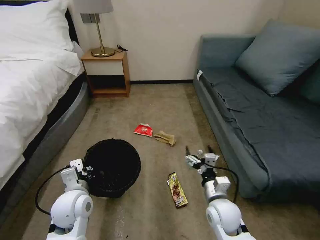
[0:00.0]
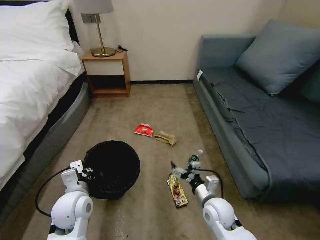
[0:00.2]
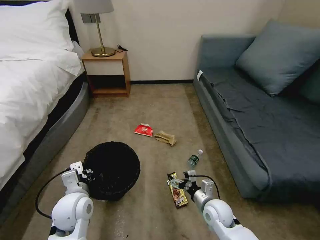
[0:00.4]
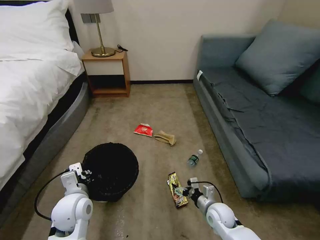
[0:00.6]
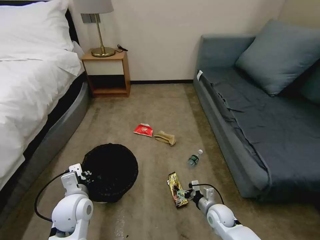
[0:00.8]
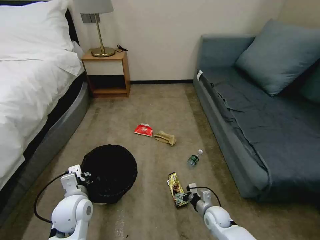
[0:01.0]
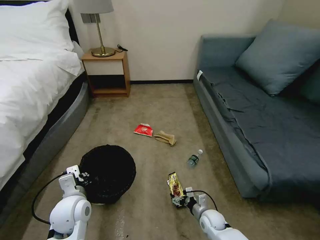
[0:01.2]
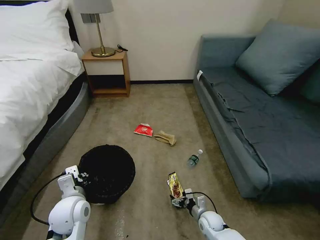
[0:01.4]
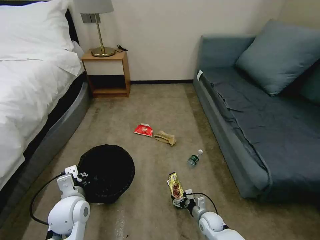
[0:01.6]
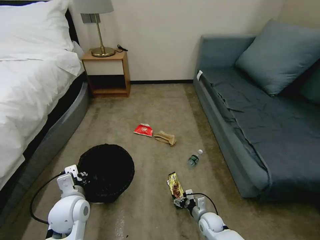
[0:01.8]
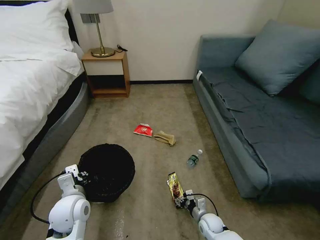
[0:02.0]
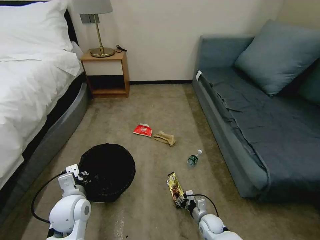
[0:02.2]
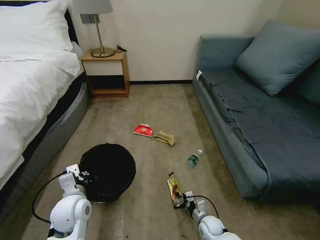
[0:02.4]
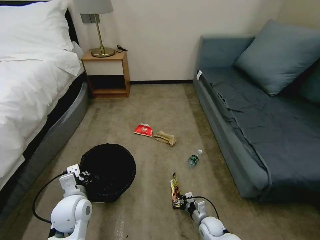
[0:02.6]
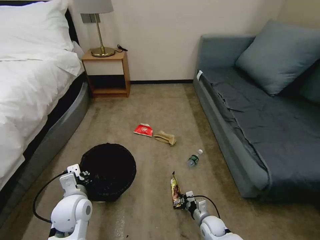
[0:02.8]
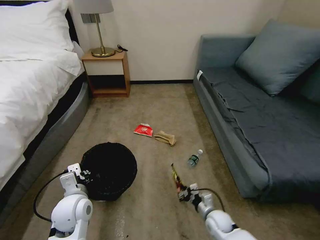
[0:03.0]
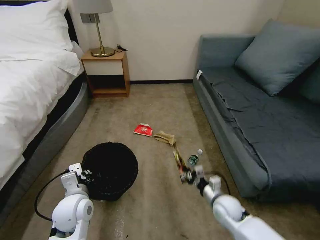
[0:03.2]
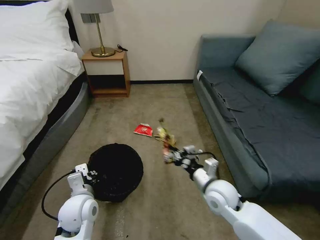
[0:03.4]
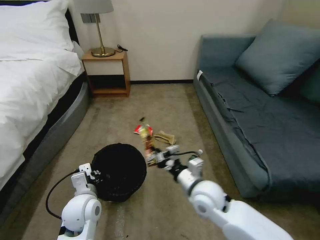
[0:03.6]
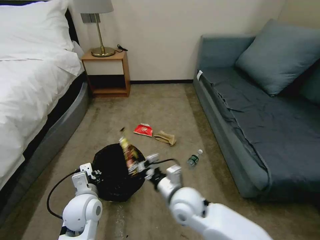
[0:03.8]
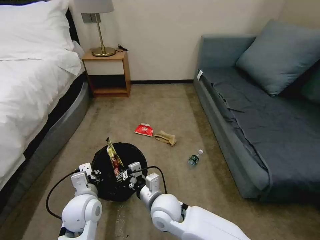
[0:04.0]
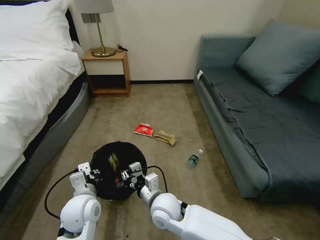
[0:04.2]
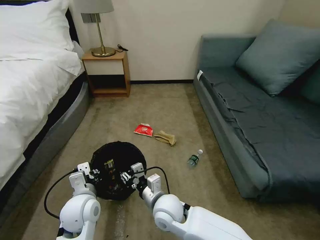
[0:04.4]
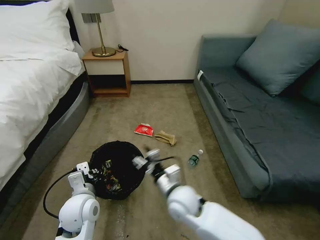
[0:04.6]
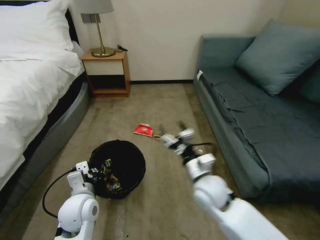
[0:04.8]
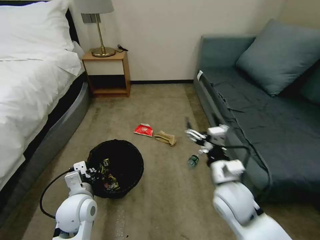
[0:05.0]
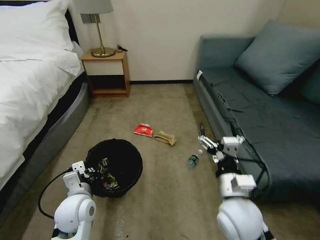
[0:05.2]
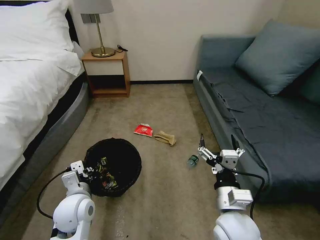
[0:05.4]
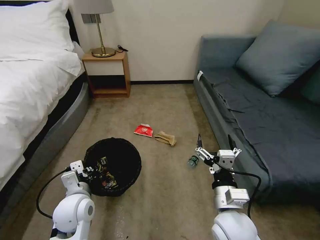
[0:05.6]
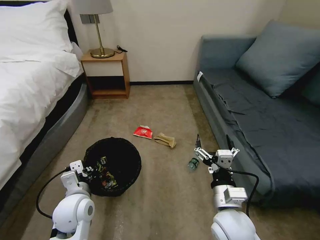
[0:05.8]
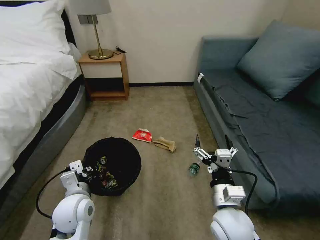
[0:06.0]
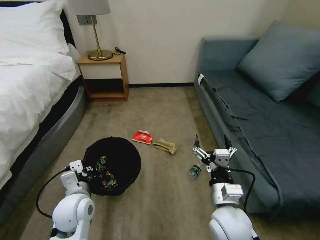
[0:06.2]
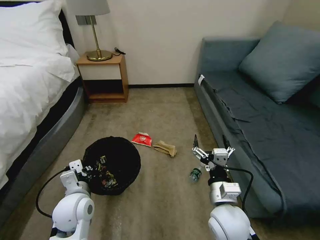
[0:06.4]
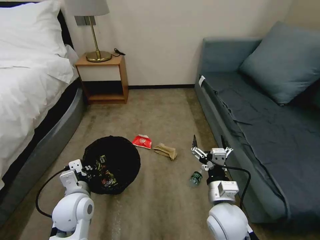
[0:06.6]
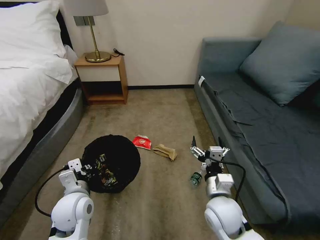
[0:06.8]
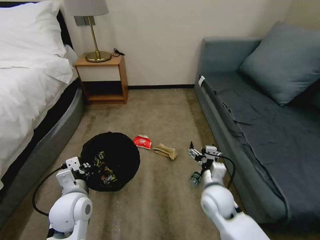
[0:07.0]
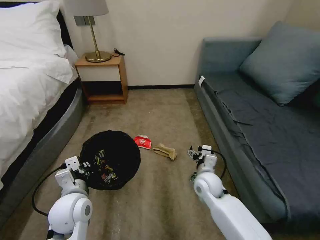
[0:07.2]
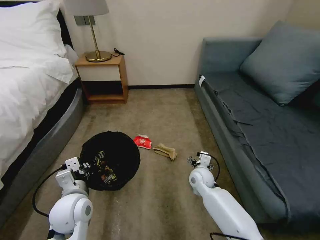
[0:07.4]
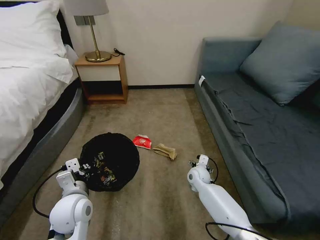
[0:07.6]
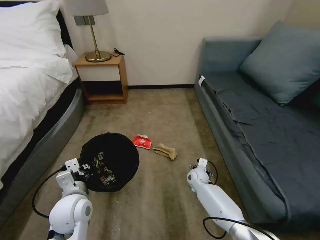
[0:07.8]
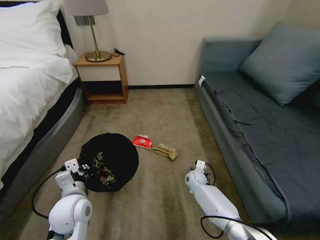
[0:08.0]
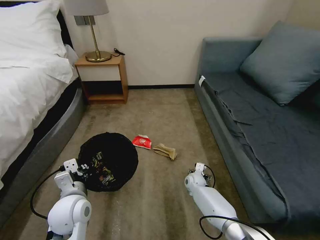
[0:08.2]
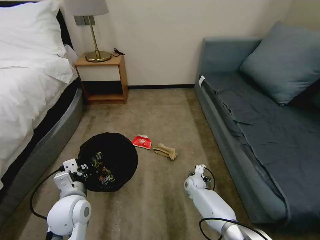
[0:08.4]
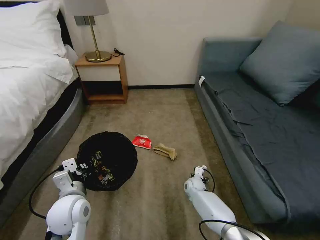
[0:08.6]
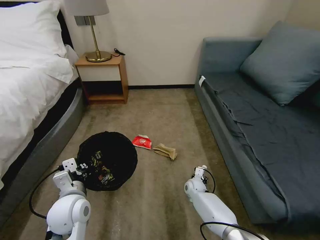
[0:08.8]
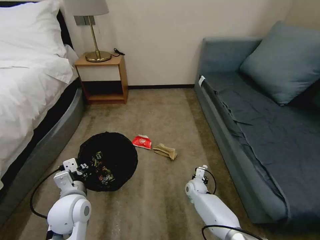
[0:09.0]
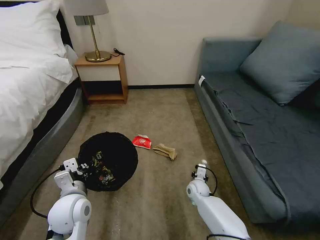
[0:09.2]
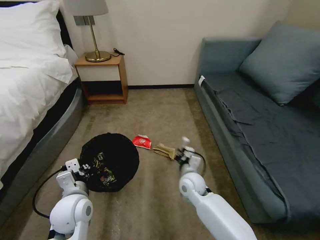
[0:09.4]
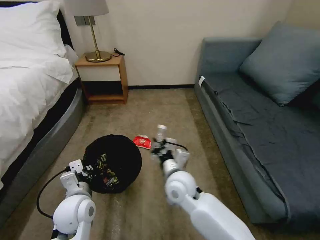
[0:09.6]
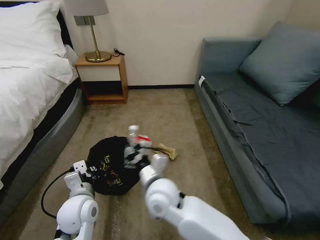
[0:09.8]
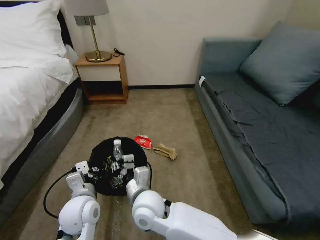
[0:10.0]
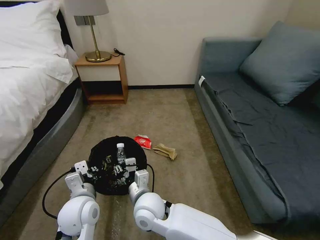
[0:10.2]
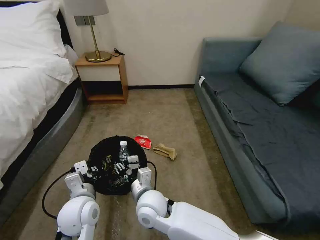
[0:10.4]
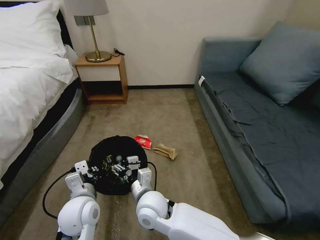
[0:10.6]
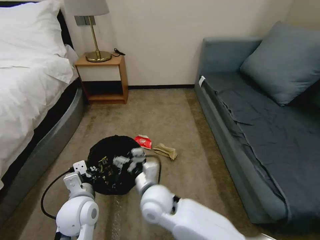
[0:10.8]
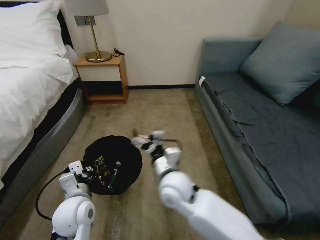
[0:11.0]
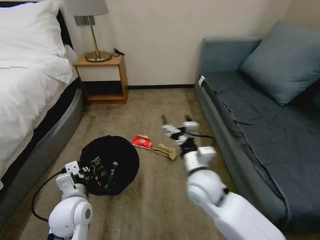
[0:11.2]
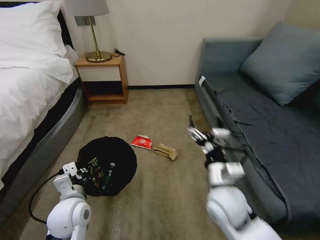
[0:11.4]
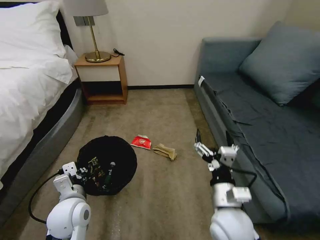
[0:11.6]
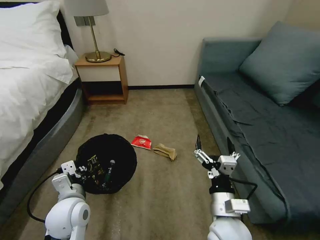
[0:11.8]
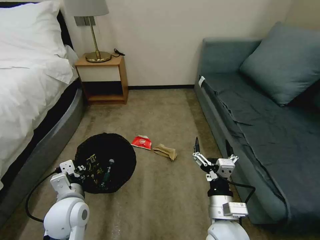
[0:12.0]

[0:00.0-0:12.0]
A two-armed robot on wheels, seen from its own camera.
Task of the whole recording: Pick up the trash bin, then pick up the garbage on the floor and place it into the trash bin.
0:00.0 to 0:01.6: The right gripper is displaced downward by roughly 20 cm.
0:01.6 to 0:03.0: The right gripper closes its fingers.
0:03.0 to 0:04.4: The right gripper is displaced to the left and upward by roughly 30 cm, and opens.
0:04.4 to 0:06.0: The right gripper heads to the right and upward, covering some 15 cm, and opens up.
0:06.0 to 0:07.6: The right gripper moves forward and downward, about 30 cm.
0:07.6 to 0:09.0: The right gripper is displaced downward by approximately 10 cm, and closes.
0:09.0 to 0:10.4: The right gripper travels upward, to the left and backward by roughly 35 cm.
0:10.4 to 0:12.0: The right gripper moves to the right and backward, some 20 cm, and opens up.

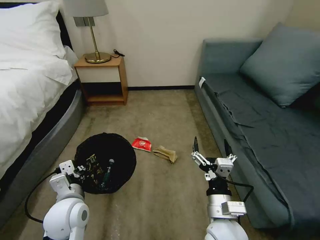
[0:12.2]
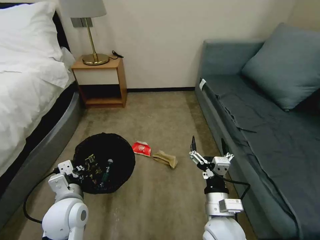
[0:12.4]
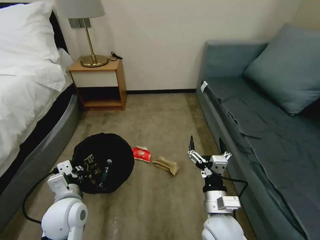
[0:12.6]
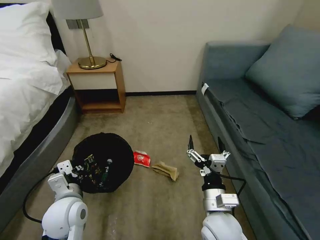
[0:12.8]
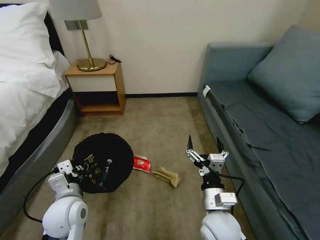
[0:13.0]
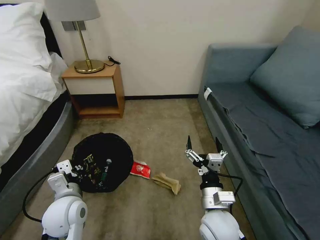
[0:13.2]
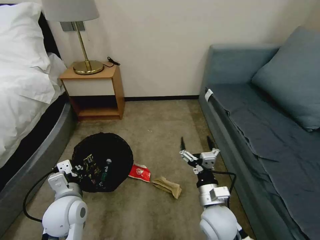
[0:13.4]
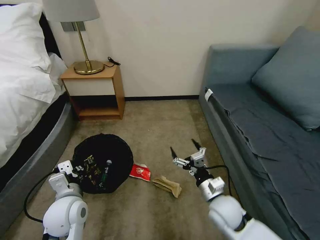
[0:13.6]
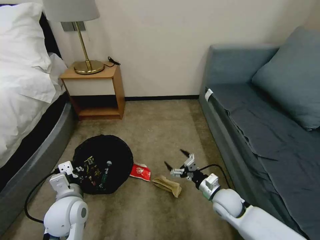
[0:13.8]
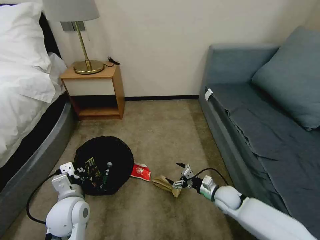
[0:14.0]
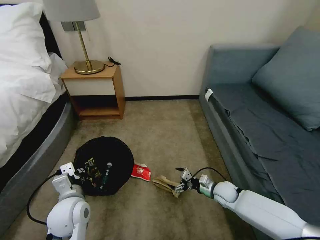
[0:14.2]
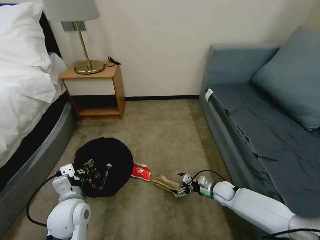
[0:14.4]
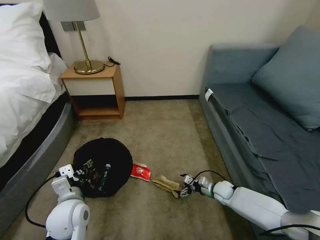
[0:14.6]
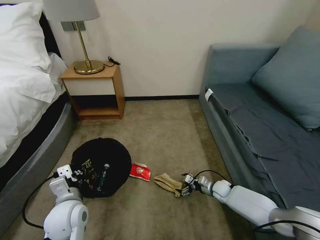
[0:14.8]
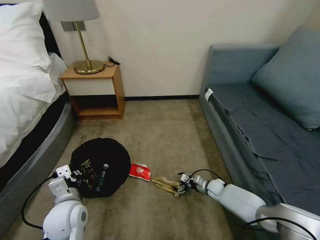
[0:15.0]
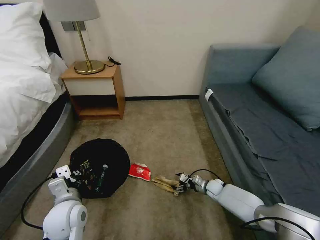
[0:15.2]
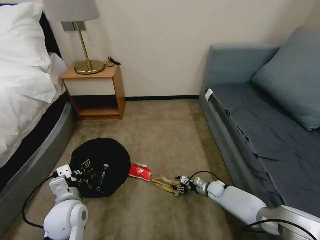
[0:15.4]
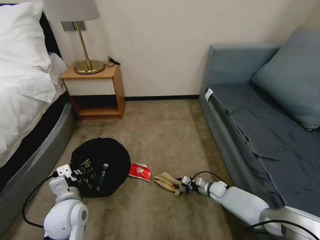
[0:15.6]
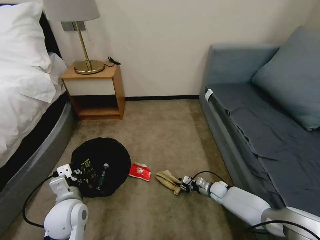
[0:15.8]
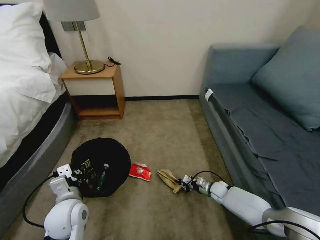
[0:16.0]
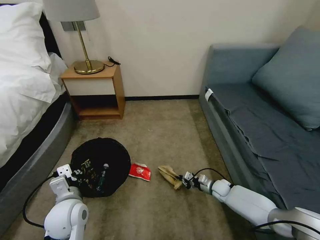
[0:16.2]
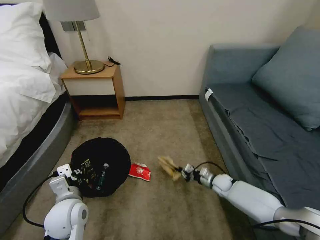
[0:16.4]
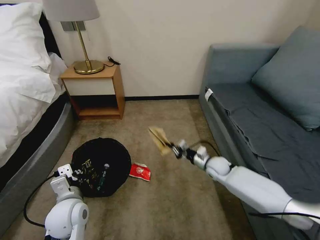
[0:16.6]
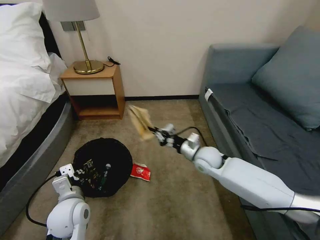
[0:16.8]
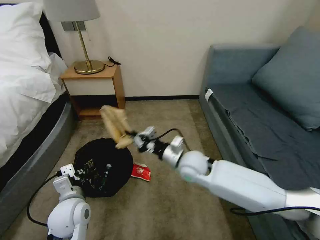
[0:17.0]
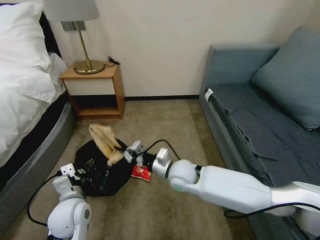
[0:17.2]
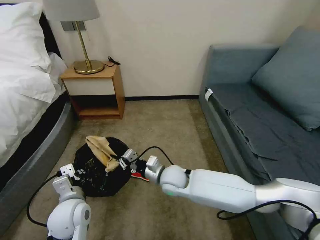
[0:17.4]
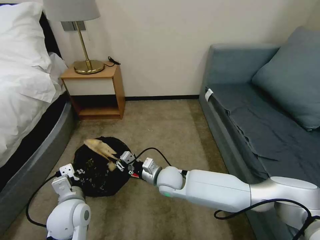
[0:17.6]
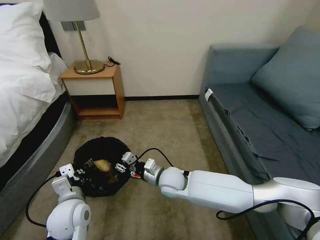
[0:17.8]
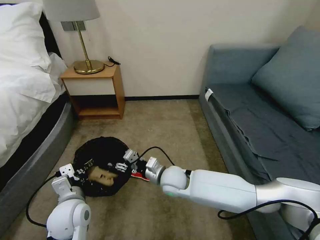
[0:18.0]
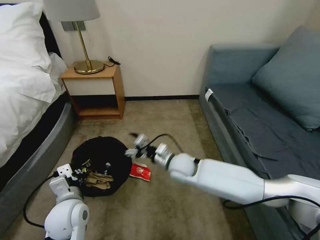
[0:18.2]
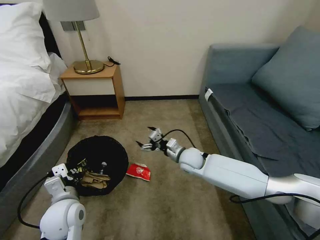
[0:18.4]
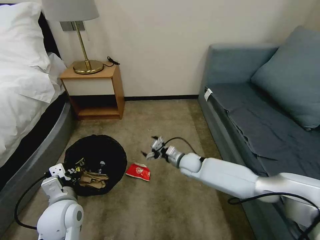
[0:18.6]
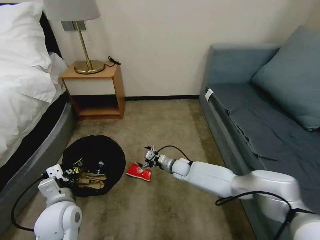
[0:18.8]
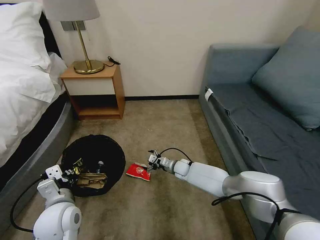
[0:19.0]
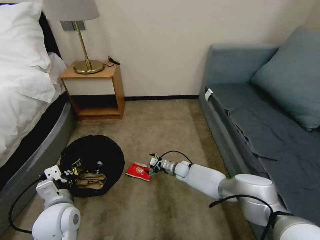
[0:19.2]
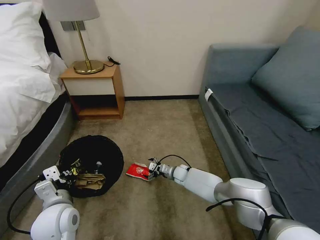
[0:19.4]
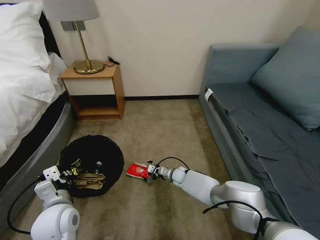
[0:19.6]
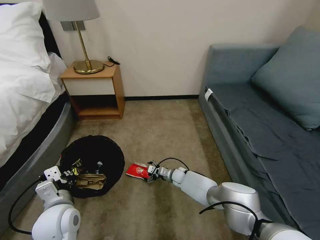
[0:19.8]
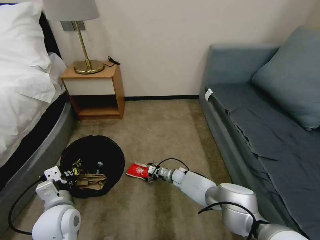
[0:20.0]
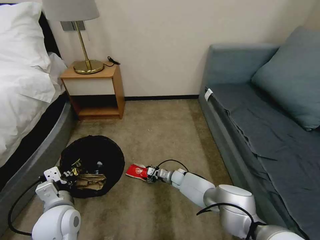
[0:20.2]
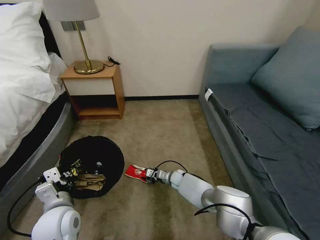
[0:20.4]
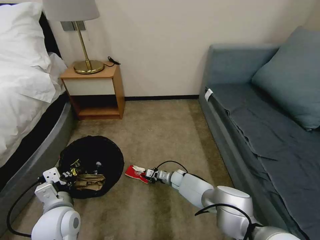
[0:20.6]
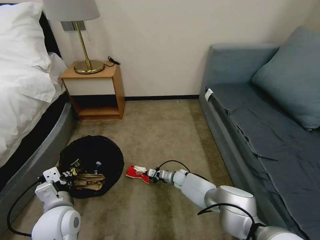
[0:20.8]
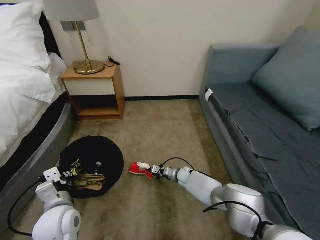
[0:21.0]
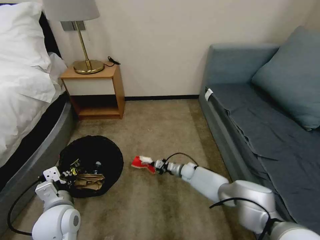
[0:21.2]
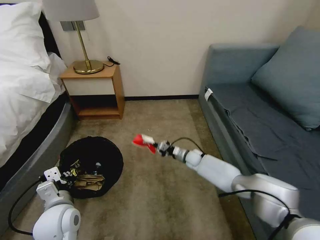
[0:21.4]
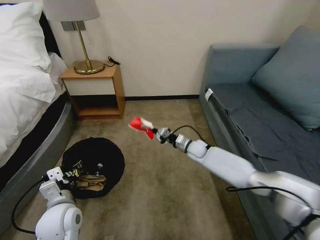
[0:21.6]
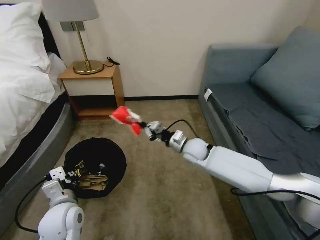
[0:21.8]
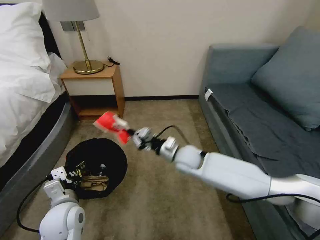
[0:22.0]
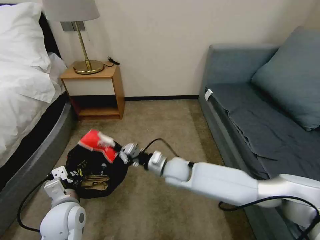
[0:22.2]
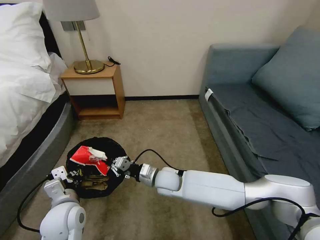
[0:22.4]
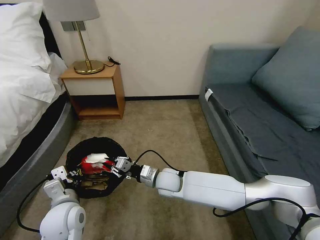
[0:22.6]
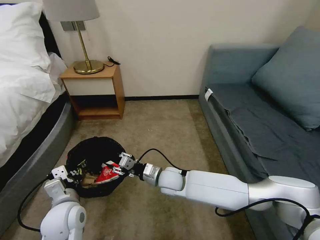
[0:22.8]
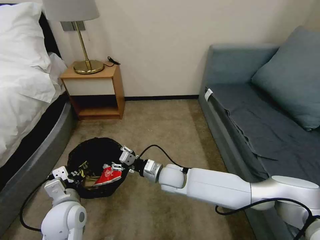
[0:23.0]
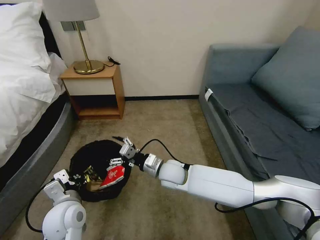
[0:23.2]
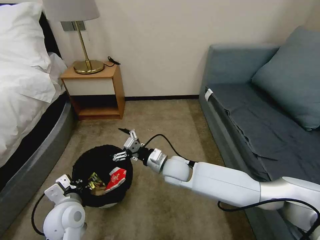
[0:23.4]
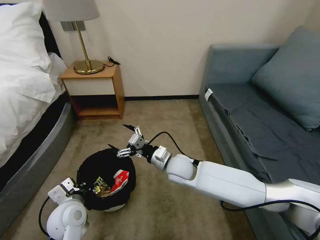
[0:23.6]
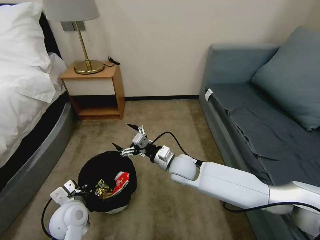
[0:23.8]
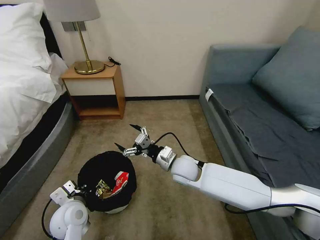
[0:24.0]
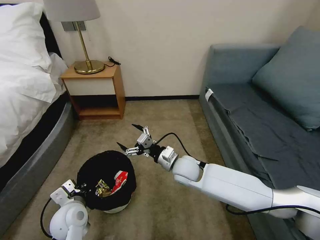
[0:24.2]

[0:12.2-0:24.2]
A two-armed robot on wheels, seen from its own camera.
Task of the whole recording: Pick up the trash bin, then pick up the garbage on the floor and place it into the trash bin.
0:12.2 to 0:13.8: The right gripper heads forward, downward and to the right, covering some 15 cm.
0:13.8 to 0:15.2: The right gripper heads downward and forward, covering approximately 20 cm.
0:15.2 to 0:16.6: The right gripper heads upward, covering about 15 cm, and closes up.
0:16.6 to 0:18.2: The right gripper moves to the left and upward, roughly 20 cm, and opens up.
0:18.2 to 0:19.8: The right gripper heads downward, covering approximately 25 cm.
0:19.8 to 0:21.2: The right gripper is displaced to the right by roughly 5 cm, and closes up.
0:21.2 to 0:22.6: The right gripper goes approximately 25 cm upward, to the left and backward.
0:22.6 to 0:24.2: The right gripper heads to the right and upward, covering about 10 cm, and opens. Meanwhile the left gripper goes about 5 cm downward.
